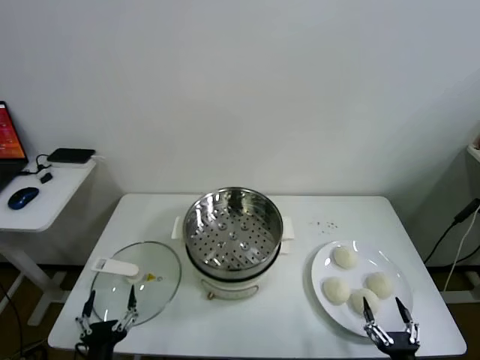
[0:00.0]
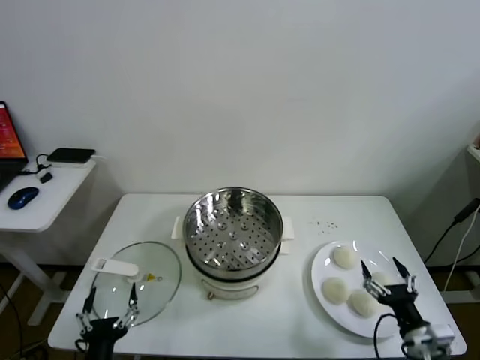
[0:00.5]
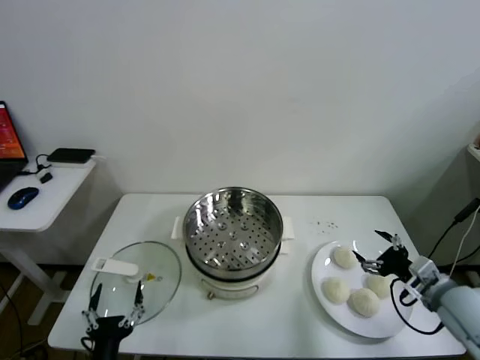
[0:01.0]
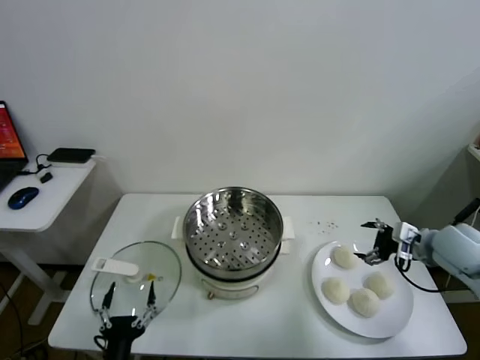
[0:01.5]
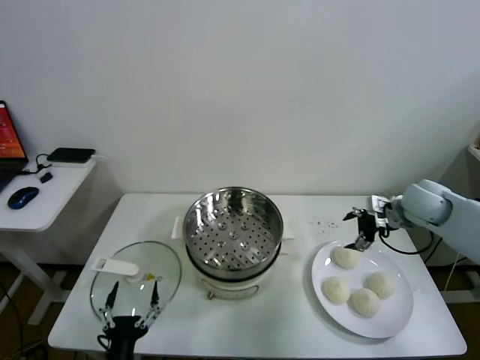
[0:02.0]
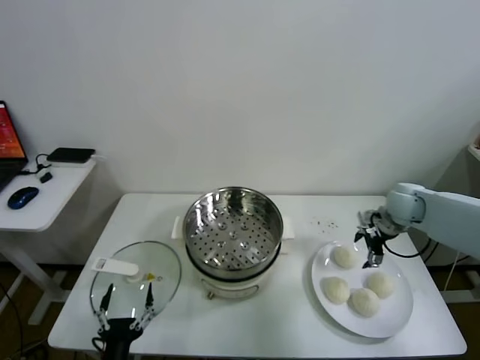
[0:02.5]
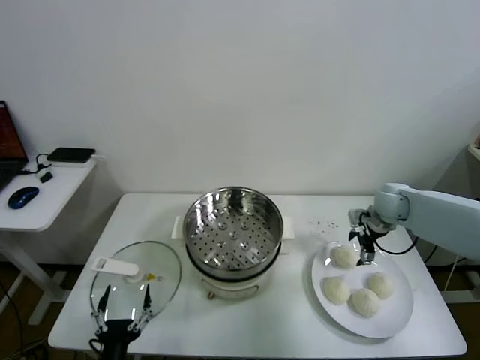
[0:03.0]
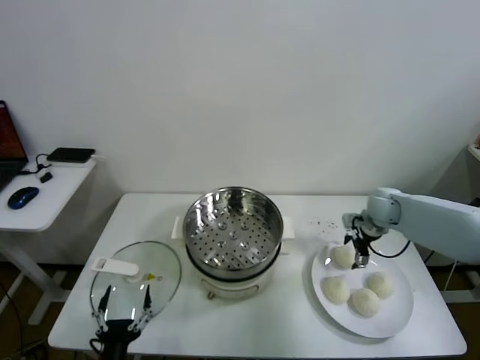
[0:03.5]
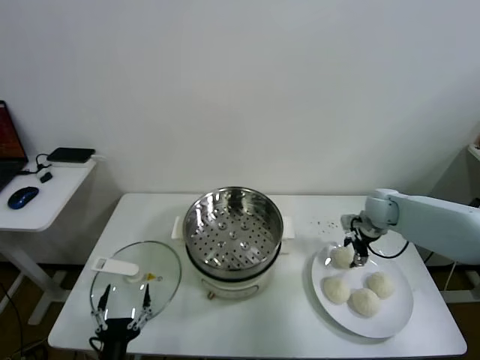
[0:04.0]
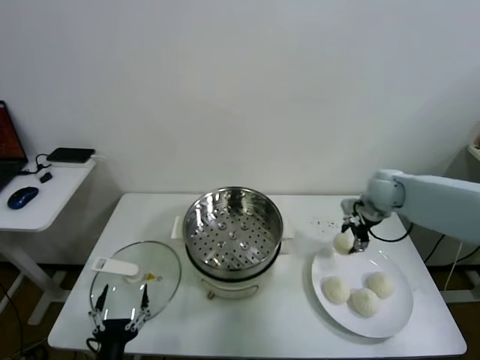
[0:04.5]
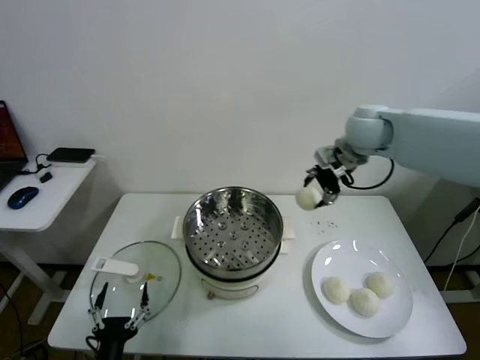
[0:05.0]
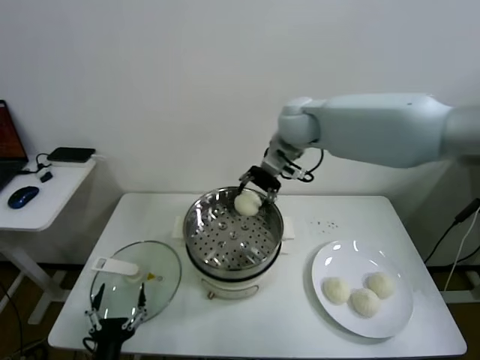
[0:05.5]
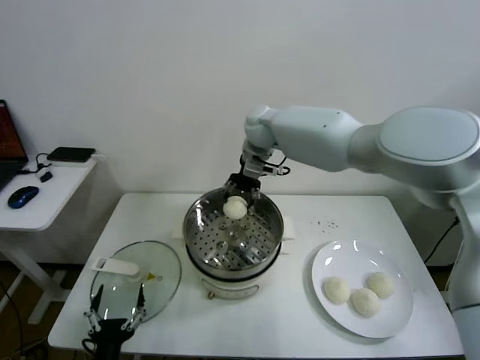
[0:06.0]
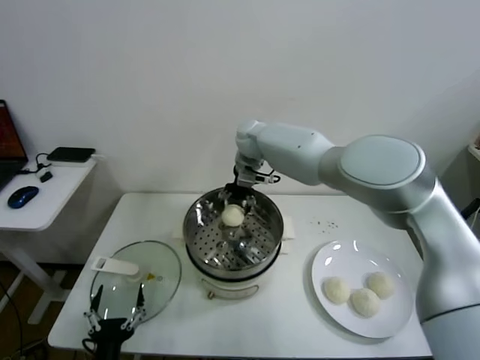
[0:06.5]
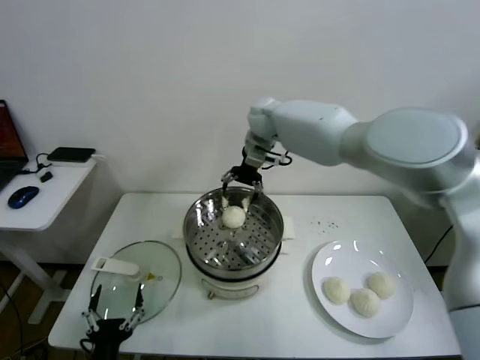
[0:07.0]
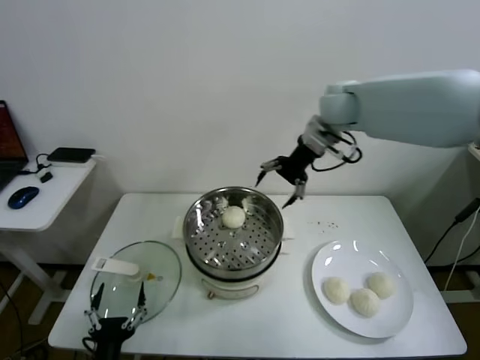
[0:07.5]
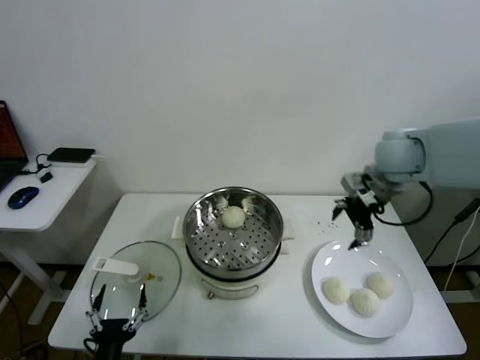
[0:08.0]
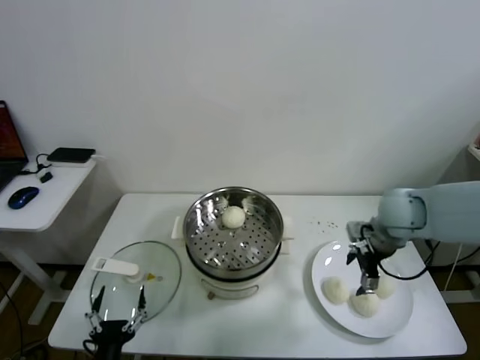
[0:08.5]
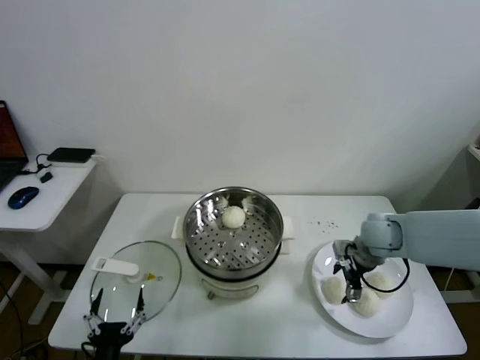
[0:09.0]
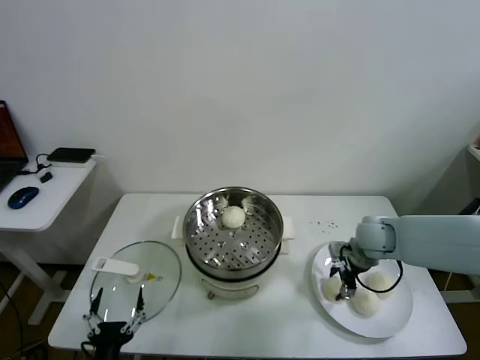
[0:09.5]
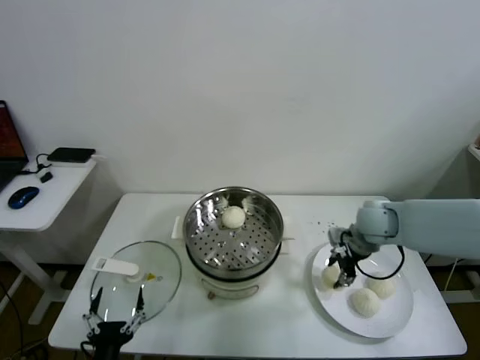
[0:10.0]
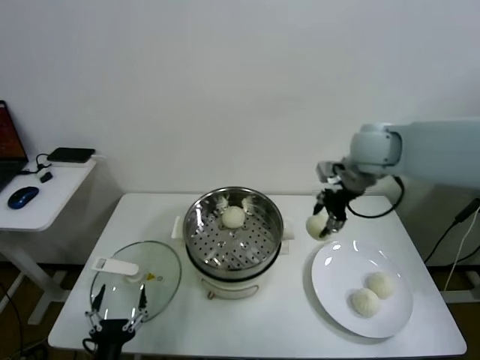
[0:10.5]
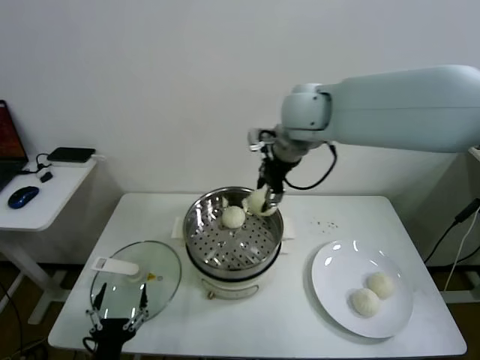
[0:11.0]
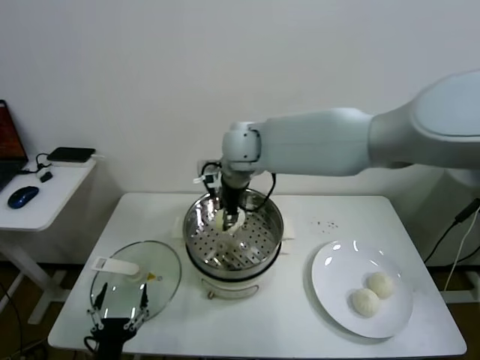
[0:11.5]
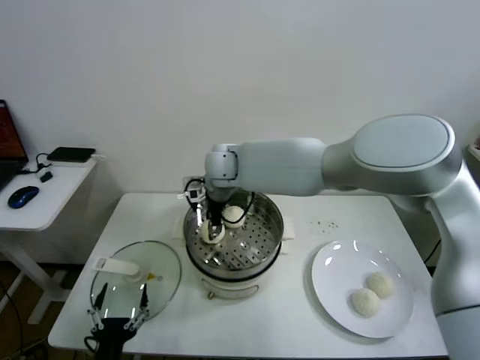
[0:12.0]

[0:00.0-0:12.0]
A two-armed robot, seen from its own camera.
Task of the whole recording: take steamed baozi put them in steamer.
Step, 0:00.0 to 0:04.0: Grasp the baozi in the plate with right gripper.
Step, 0:04.5 to 0:06.5: Place the baozi on the steamer with right gripper.
Step, 0:07.0 to 0:09.5: Grasp the baozi in the plate with right gripper.
0:02.0 to 0:04.0: The right gripper goes approximately 5 cm downward, and closes its fingers.
0:04.0 to 0:06.0: The right gripper shifts approximately 35 cm to the left and upward.
0:06.0 to 0:08.0: The right gripper heads to the right and backward, covering some 30 cm, and opens up.
0:08.0 to 0:10.0: The right gripper moves downward, roughly 15 cm, and closes up.
0:10.0 to 0:12.0: The right gripper goes some 35 cm to the left.

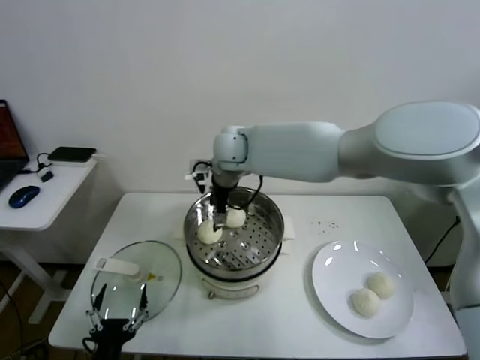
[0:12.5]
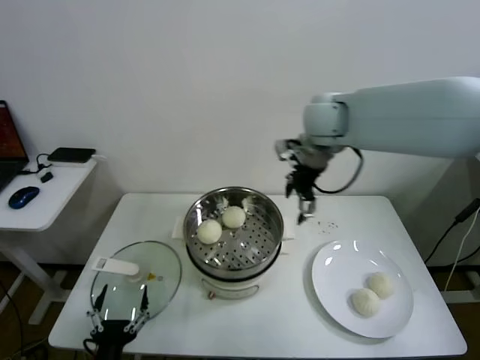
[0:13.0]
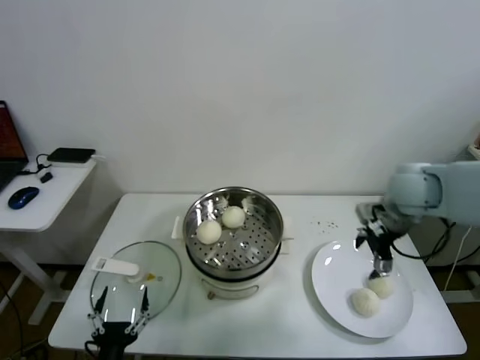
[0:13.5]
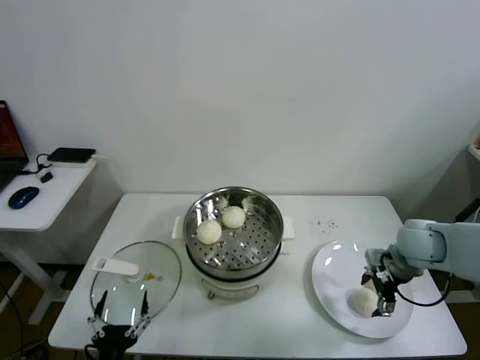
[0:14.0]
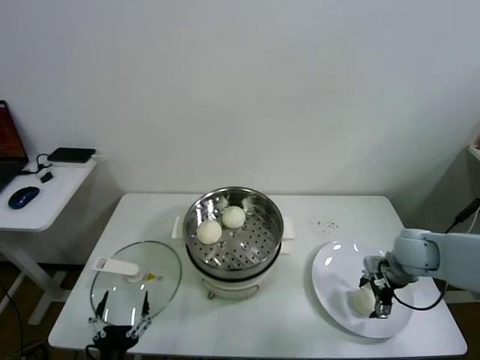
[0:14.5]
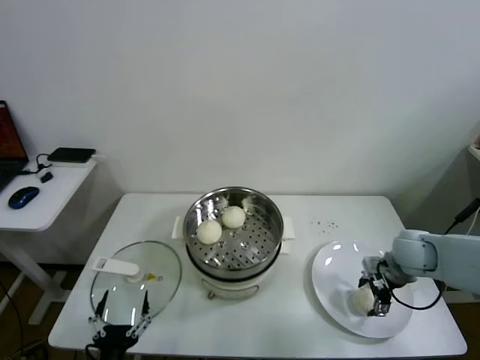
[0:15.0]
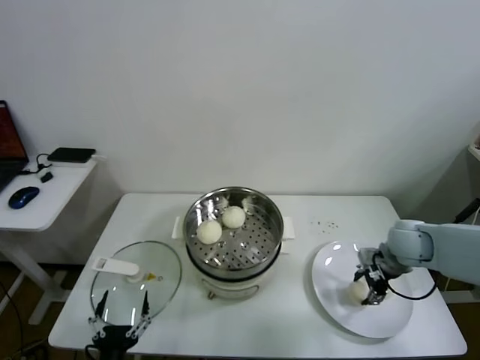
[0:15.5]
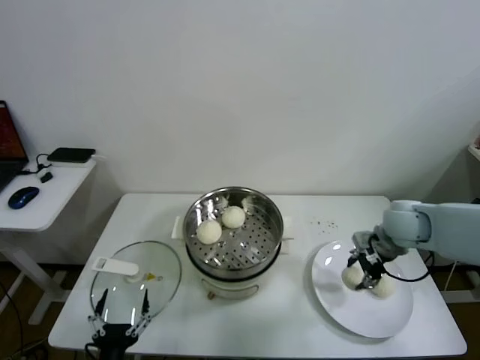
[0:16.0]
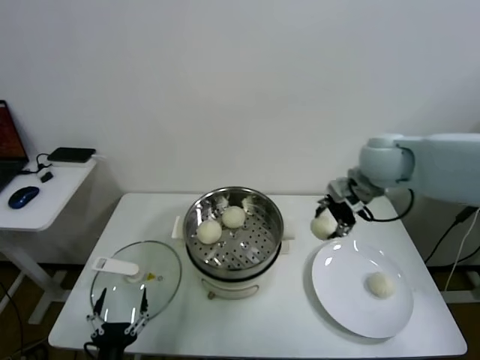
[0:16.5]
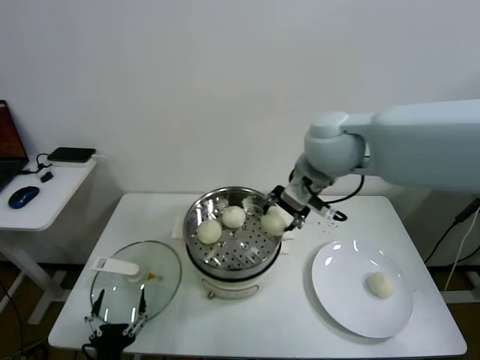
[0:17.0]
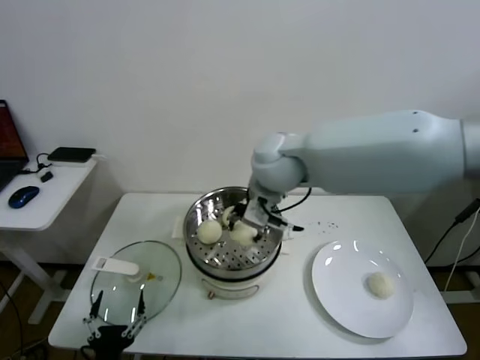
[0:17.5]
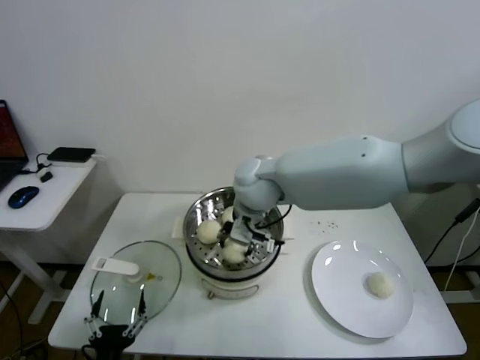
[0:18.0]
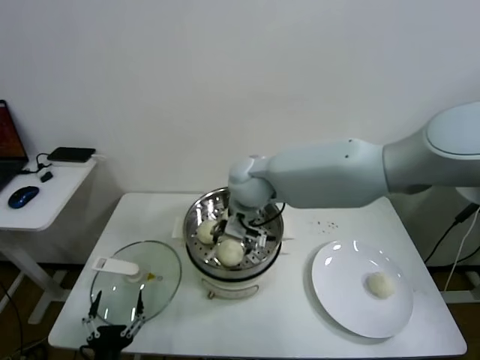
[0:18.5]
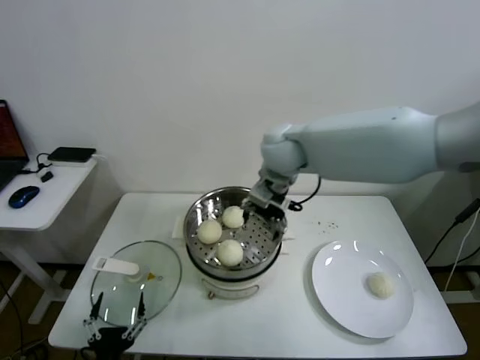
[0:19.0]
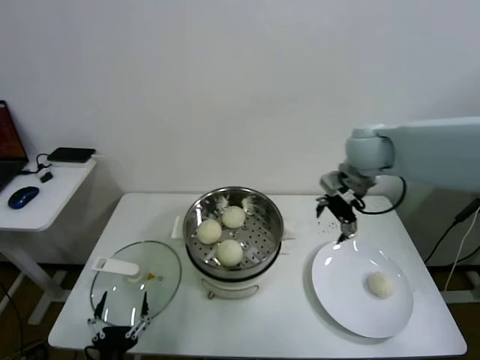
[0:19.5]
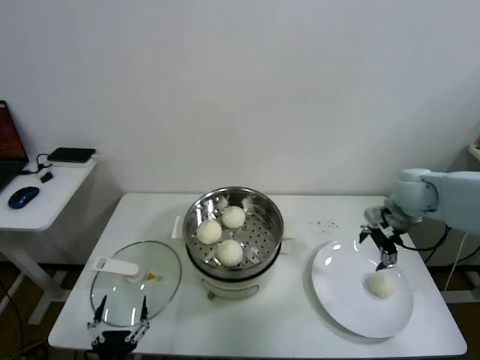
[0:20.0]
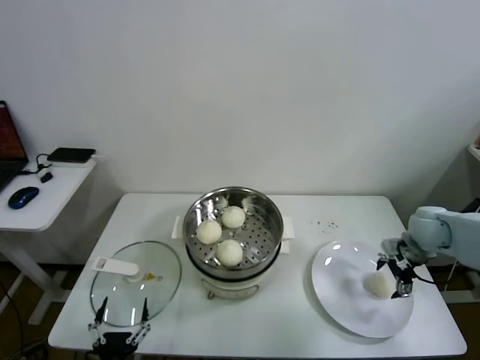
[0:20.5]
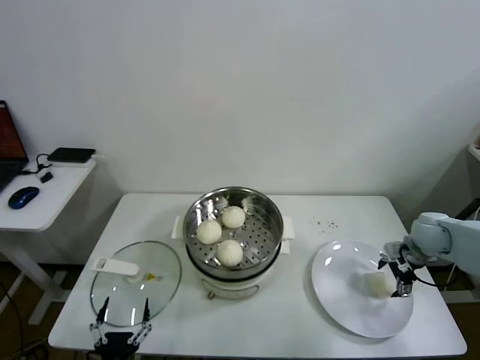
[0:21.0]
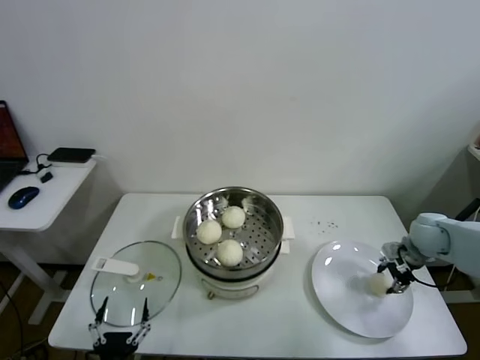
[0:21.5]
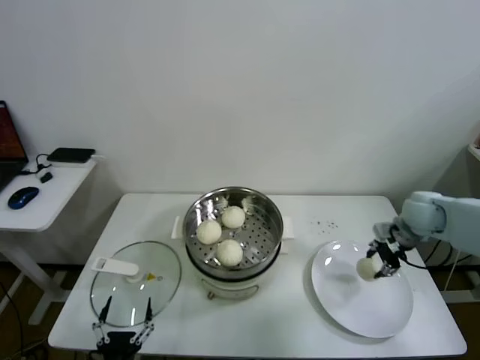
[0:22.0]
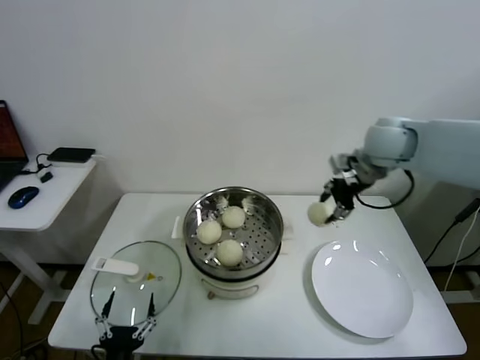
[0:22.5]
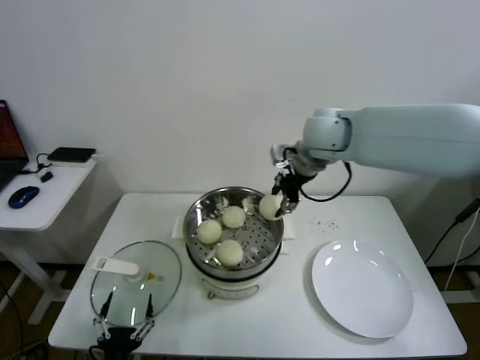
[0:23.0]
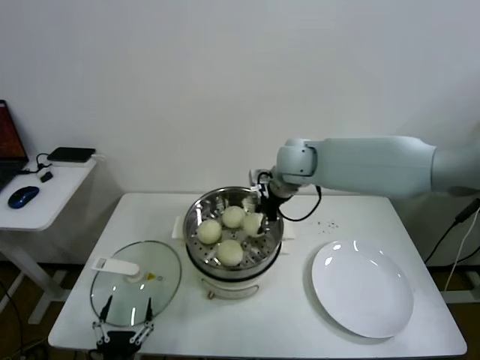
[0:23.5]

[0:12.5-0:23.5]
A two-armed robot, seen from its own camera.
Task of the whole recording: take steamed baozi put them in steamer.
Step, 0:12.5 to 0:15.0: Grasp the baozi in the plate with right gripper.
Step, 0:15.5 to 0:18.5: Place the baozi on the steamer with right gripper.
Step, 0:19.0 to 0:21.5: Grasp the baozi in the plate with right gripper.
0:12.5 to 0:14.5: The right gripper moves to the right and downward, about 40 cm.
0:14.5 to 0:16.0: The right gripper moves upward, about 5 cm, and closes its fingers.
0:16.0 to 0:18.0: The right gripper moves to the left, about 30 cm.
0:18.0 to 0:20.0: The right gripper heads to the right, covering roughly 35 cm, and opens up.
0:20.0 to 0:21.5: The right gripper is displaced downward and to the right by some 15 cm, and closes its fingers.
0:21.5 to 0:23.5: The right gripper goes some 35 cm to the left and upward.

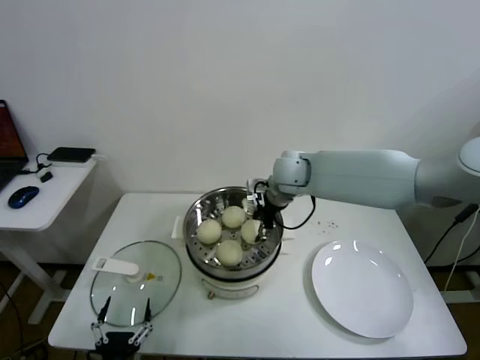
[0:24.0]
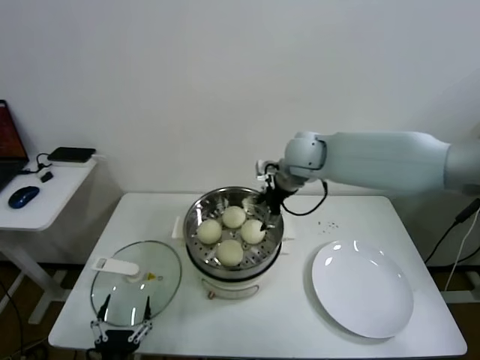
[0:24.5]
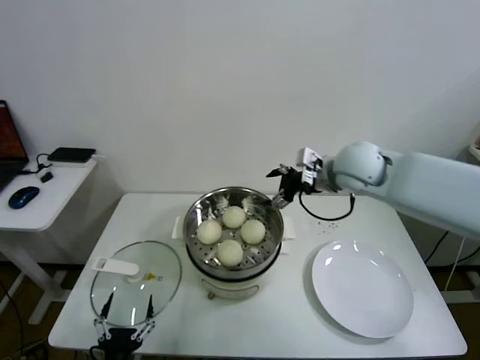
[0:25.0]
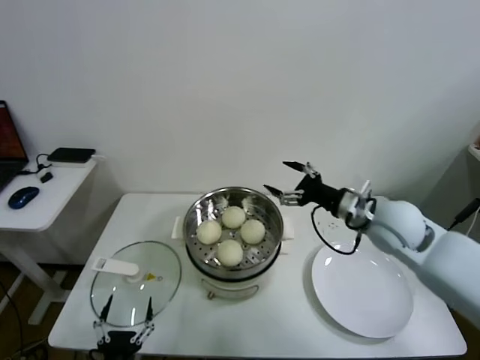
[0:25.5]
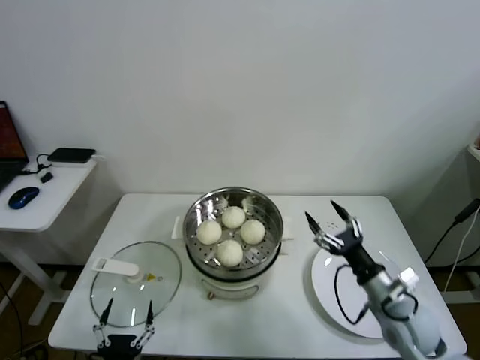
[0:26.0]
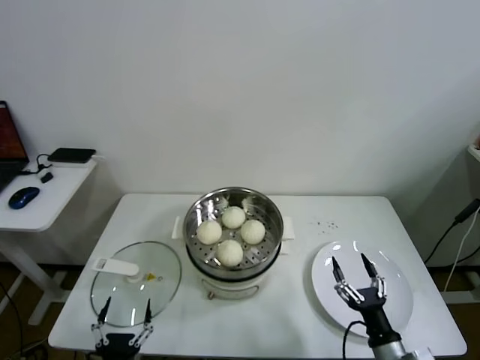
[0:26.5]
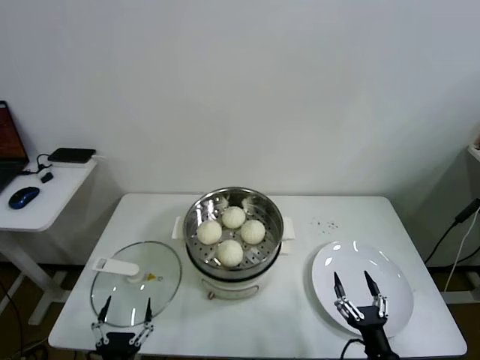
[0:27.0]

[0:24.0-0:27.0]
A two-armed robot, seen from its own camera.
Task of the whole recording: take steamed baozi put them in steamer.
0:24.0 to 0:25.5: The right gripper travels to the right and backward by about 20 cm, and opens.
0:25.5 to 0:27.0: The right gripper shifts approximately 40 cm backward and downward.
